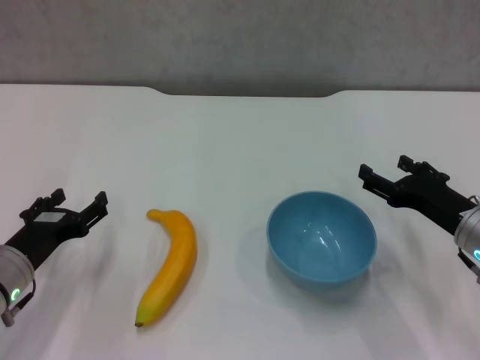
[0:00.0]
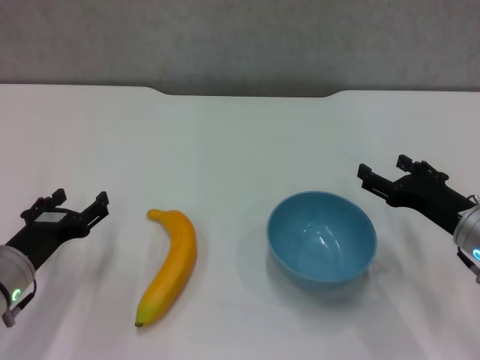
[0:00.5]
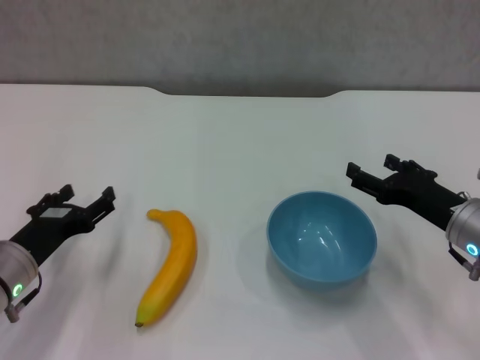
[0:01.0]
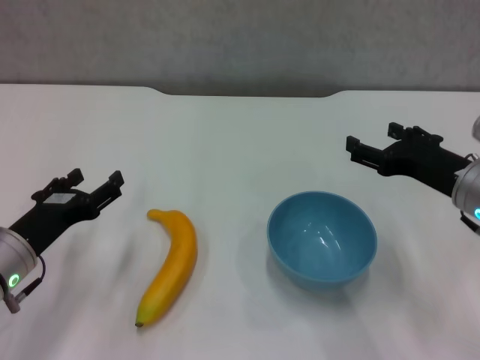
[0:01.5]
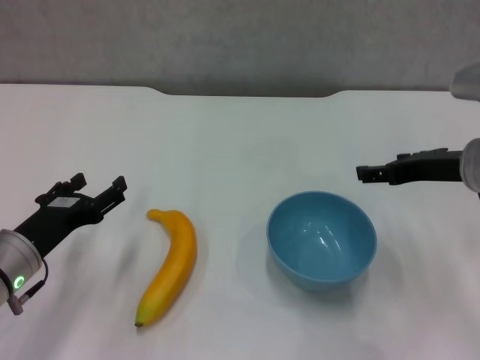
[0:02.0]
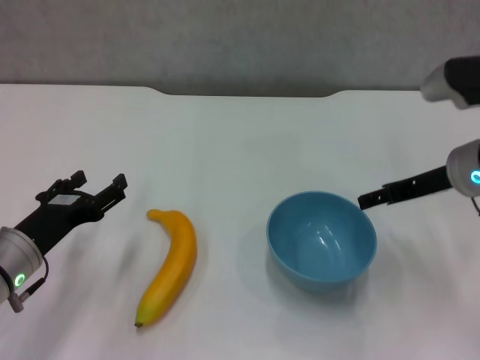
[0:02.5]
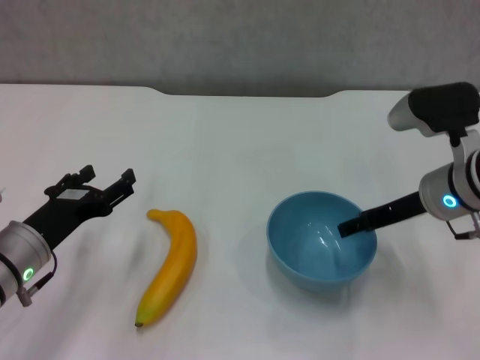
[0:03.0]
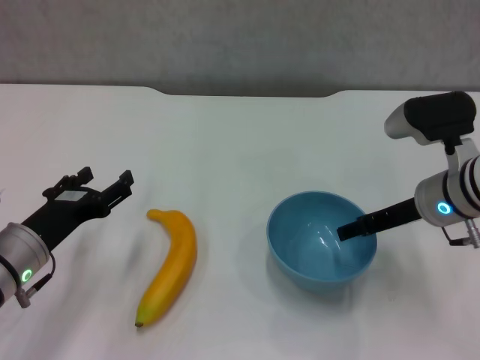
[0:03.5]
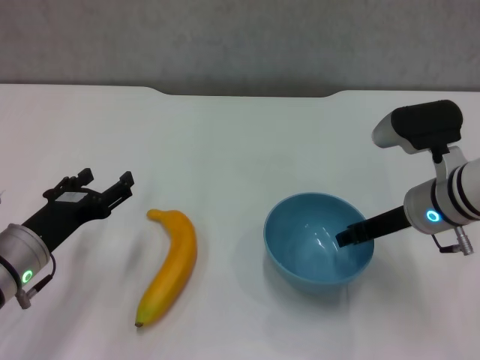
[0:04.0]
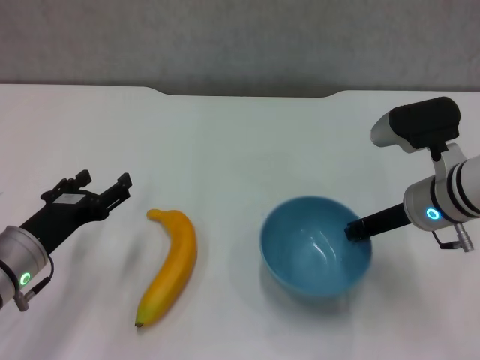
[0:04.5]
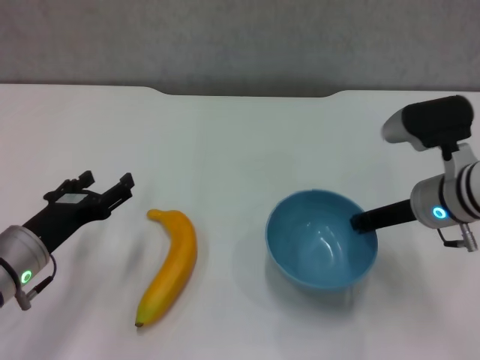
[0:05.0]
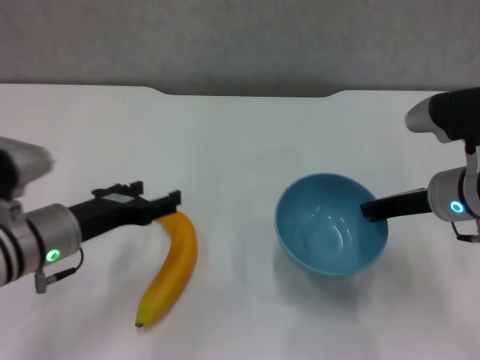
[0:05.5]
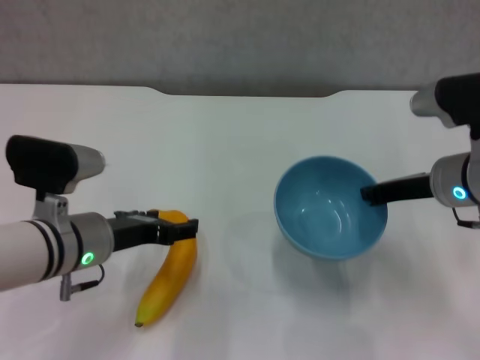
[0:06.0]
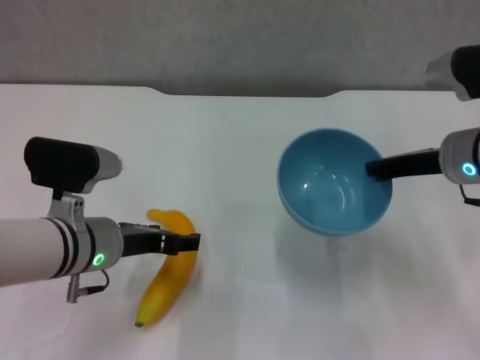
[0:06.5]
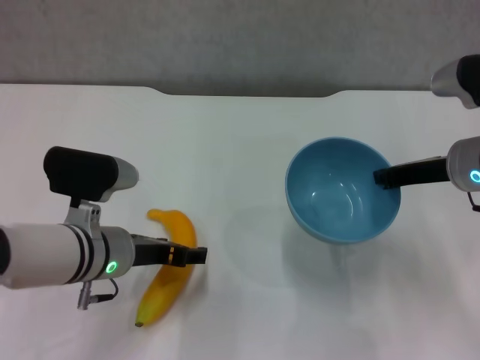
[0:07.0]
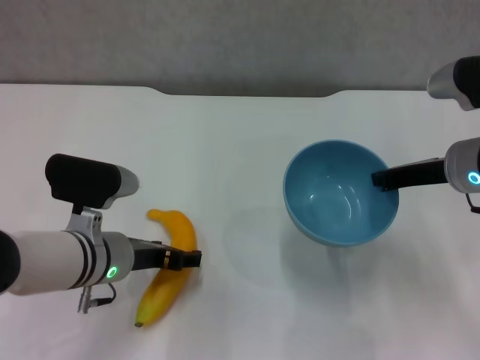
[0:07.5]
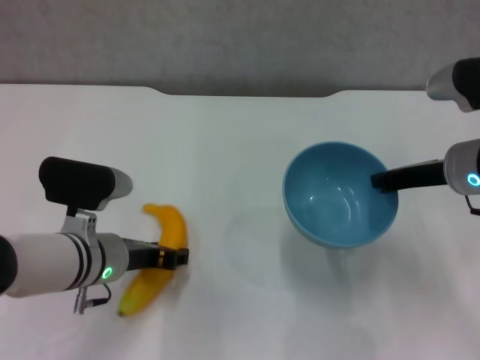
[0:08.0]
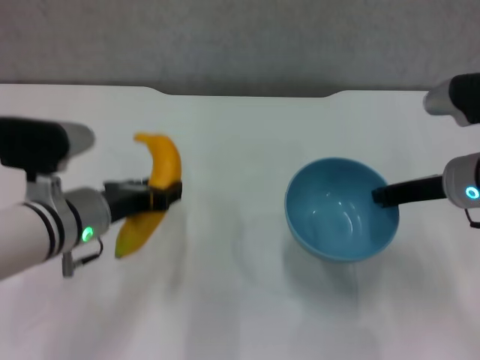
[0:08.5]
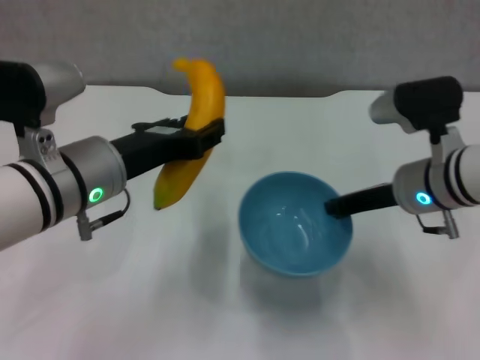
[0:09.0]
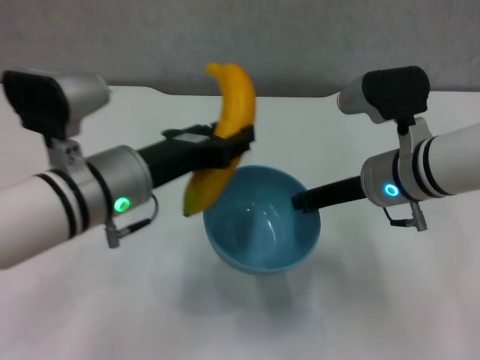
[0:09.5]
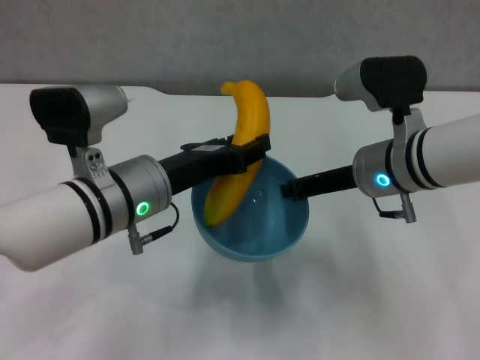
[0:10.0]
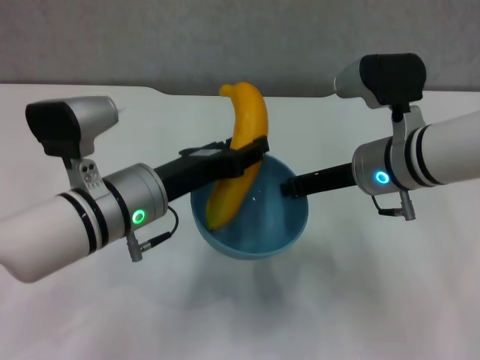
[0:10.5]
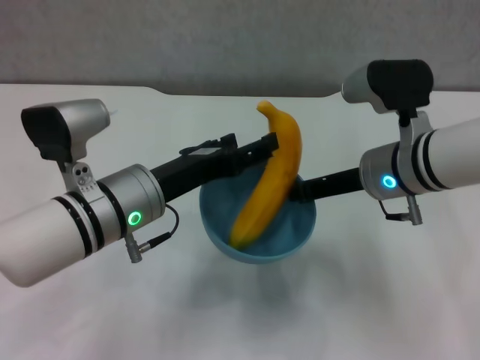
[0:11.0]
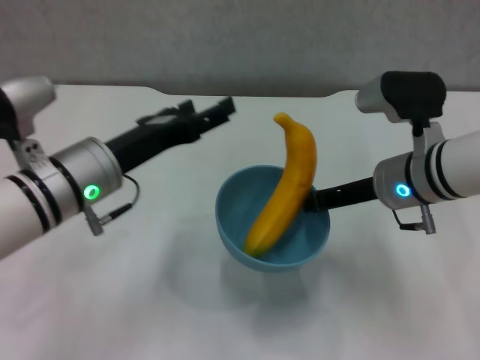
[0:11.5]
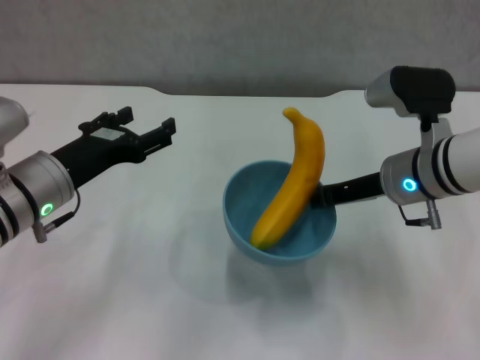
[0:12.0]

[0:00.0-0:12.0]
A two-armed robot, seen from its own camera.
Step, 0:00.0 to 0:04.5: Grasp the blue bowl with right gripper.
Step, 0:05.0 to 0:05.5: Lift the blue bowl with right gripper.
Step, 0:06.0 to 0:07.5: Grasp the banana with left gripper.
Step, 0:08.0 to 0:11.0: Place the banana in the blue bowl with left gripper.
0:00.0 to 0:02.0: The right gripper is displaced upward by some 10 cm.
0:02.0 to 0:04.0: The right gripper shifts about 5 cm downward, and closes up.
0:04.0 to 0:06.0: The left gripper is displaced to the right by about 5 cm; the right gripper closes up.
0:06.0 to 0:08.0: The grippers stay close to where they were, moving slightly.
0:08.0 to 0:10.0: The left gripper goes approximately 10 cm upward, and closes up. Meanwhile the right gripper shifts roughly 10 cm to the left.
0:10.0 to 0:12.0: The left gripper moves to the left, approximately 10 cm, and opens its fingers.

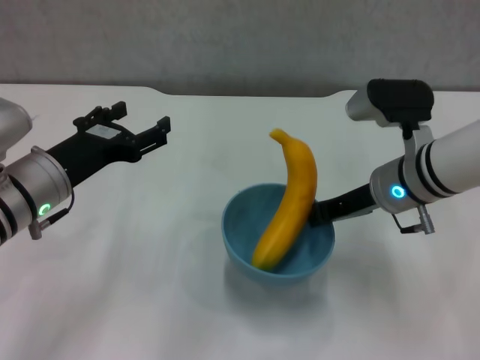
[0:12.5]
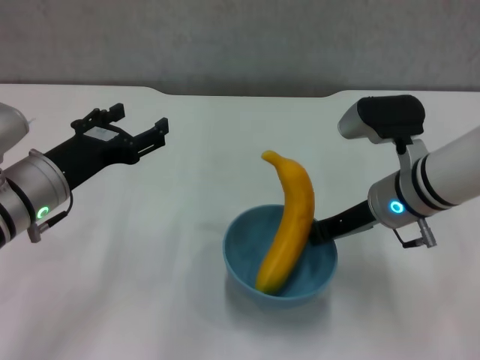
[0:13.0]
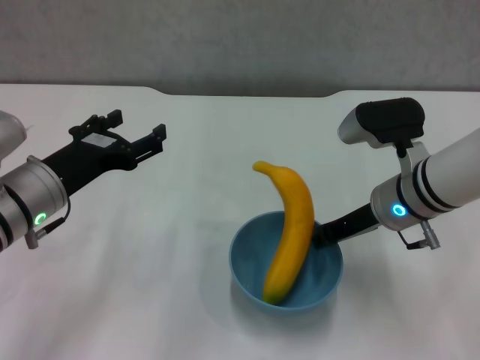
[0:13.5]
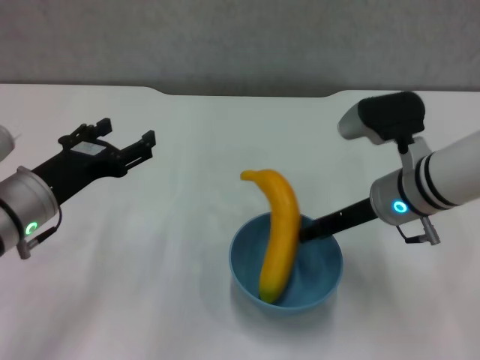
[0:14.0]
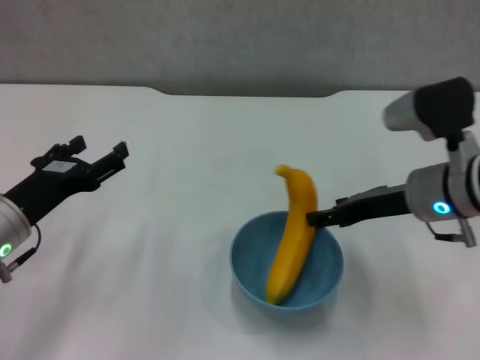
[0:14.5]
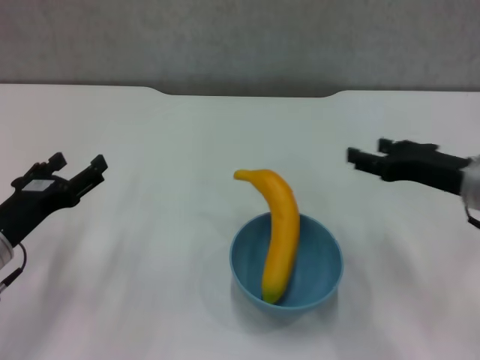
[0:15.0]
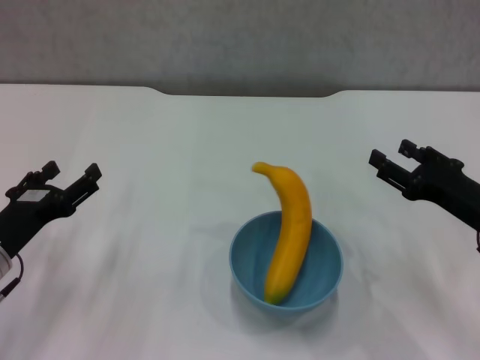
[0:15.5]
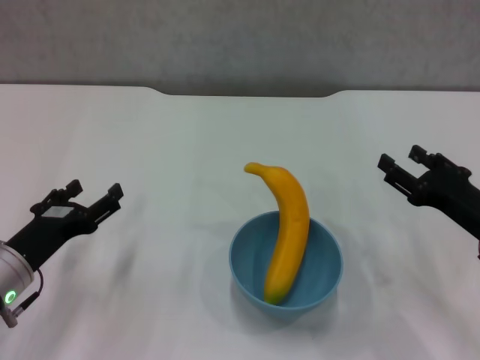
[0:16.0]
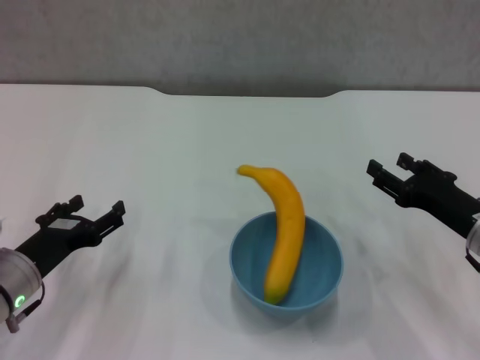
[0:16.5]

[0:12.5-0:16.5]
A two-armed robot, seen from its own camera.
0:12.5 to 0:14.5: The left gripper changes place by roughly 5 cm, while the right gripper opens.
0:14.5 to 0:16.5: The left gripper moves downward, about 5 cm, while the right gripper shifts roughly 10 cm downward and to the right.
